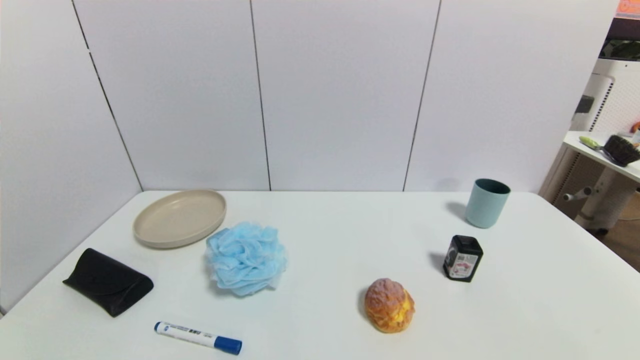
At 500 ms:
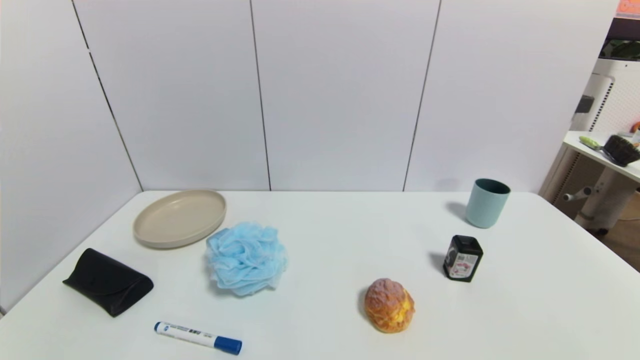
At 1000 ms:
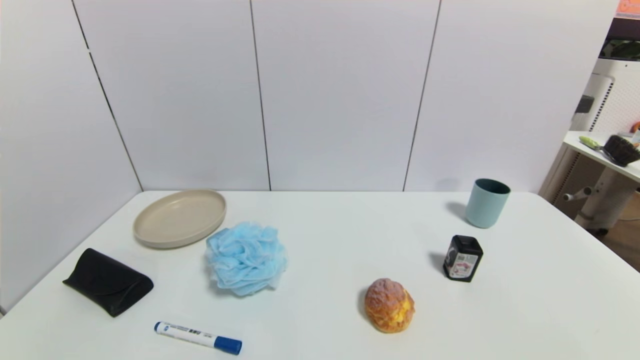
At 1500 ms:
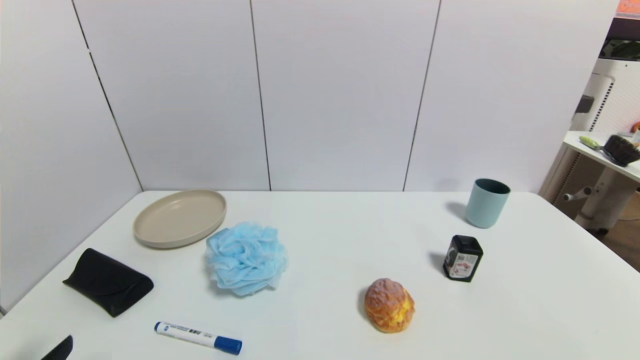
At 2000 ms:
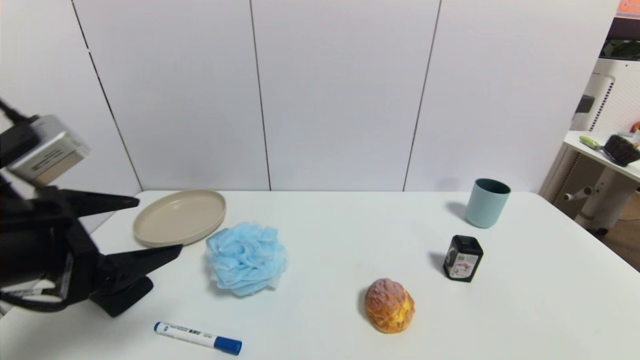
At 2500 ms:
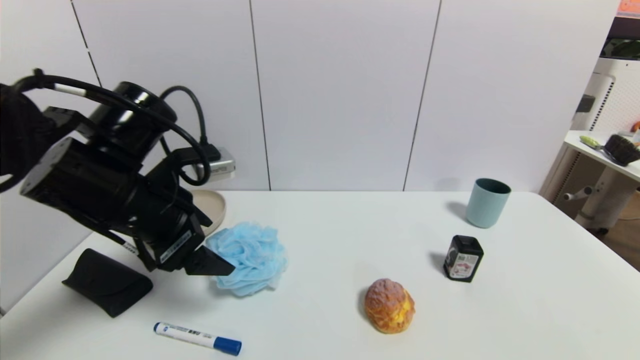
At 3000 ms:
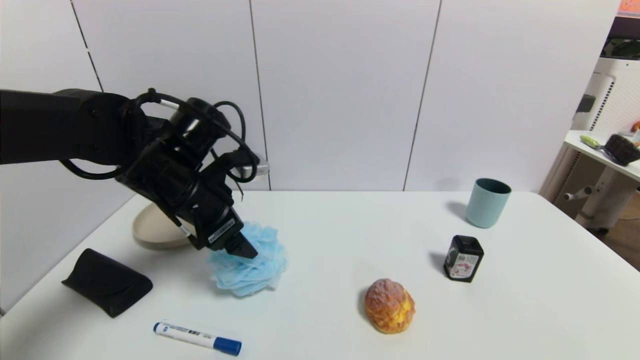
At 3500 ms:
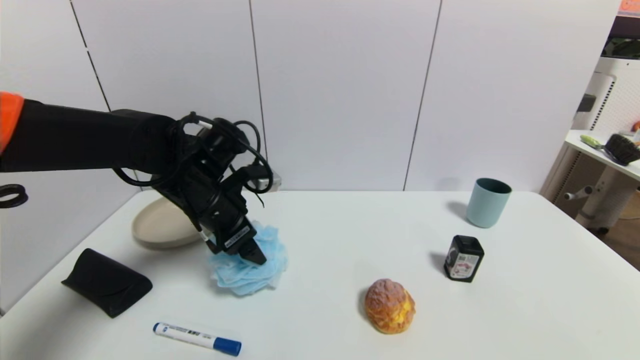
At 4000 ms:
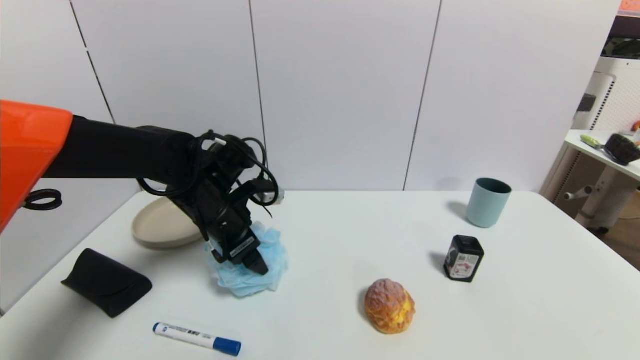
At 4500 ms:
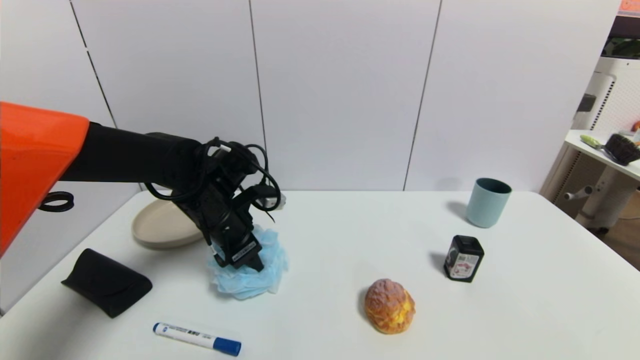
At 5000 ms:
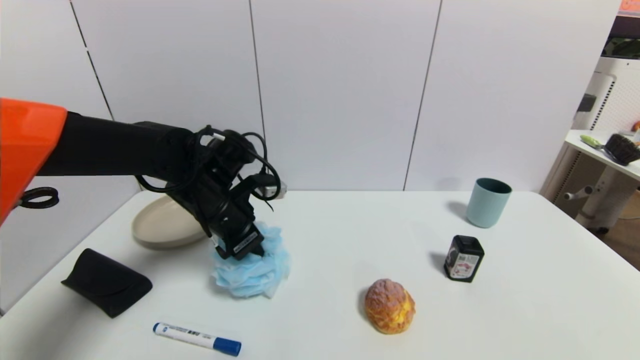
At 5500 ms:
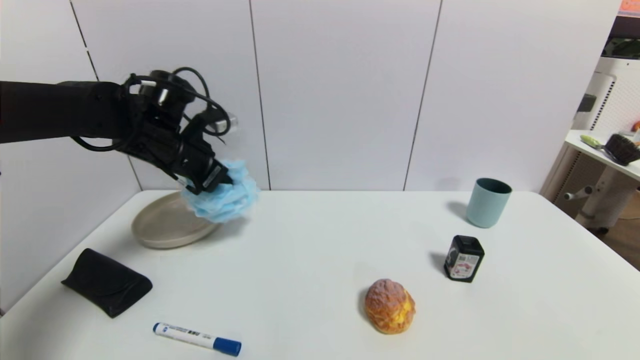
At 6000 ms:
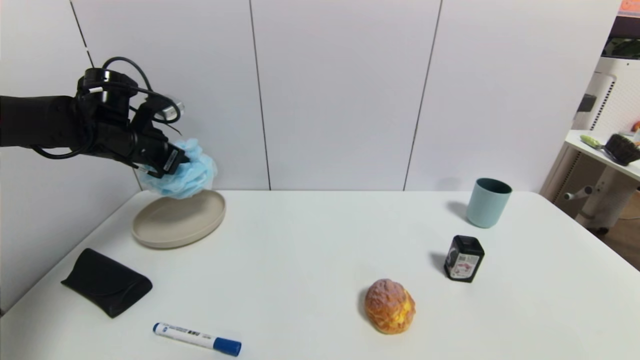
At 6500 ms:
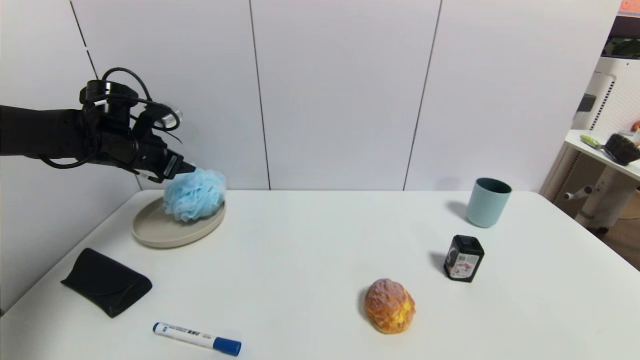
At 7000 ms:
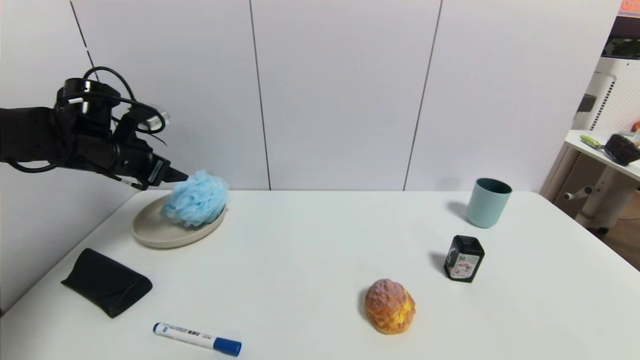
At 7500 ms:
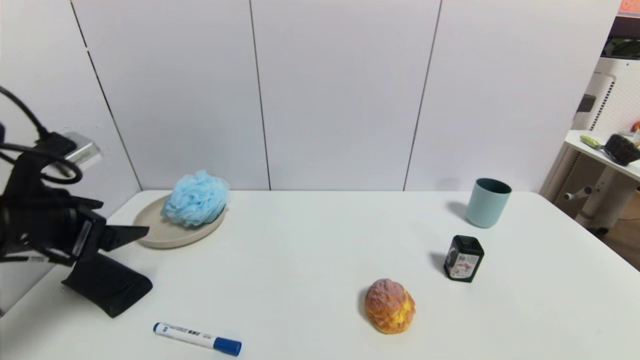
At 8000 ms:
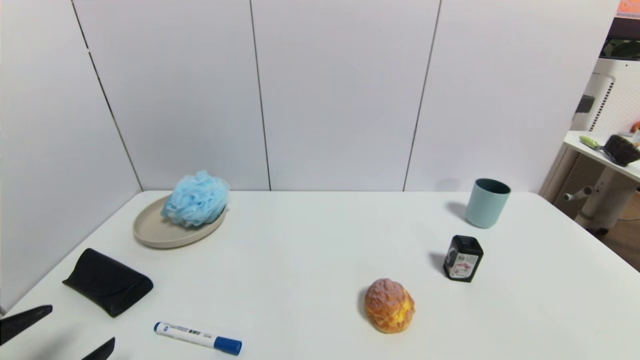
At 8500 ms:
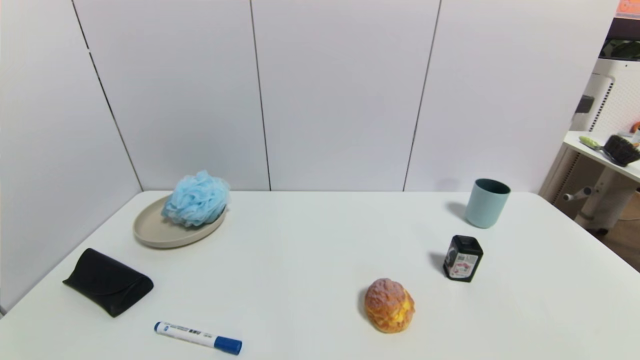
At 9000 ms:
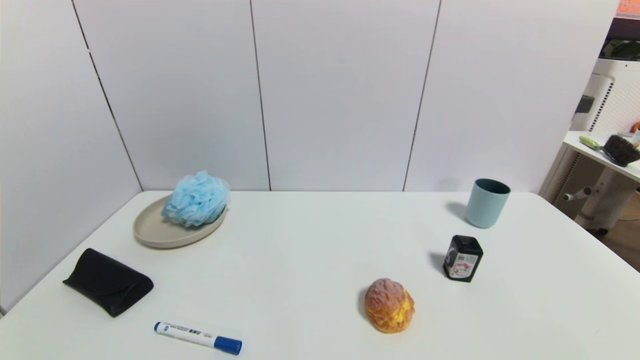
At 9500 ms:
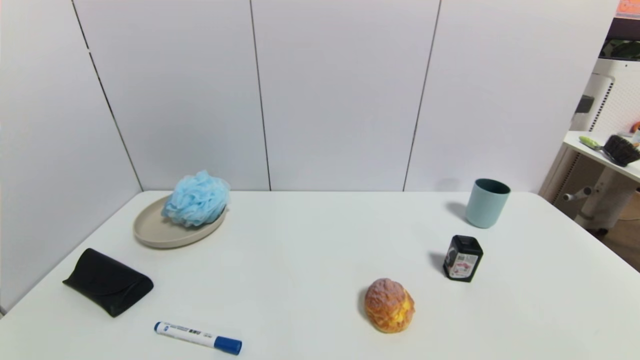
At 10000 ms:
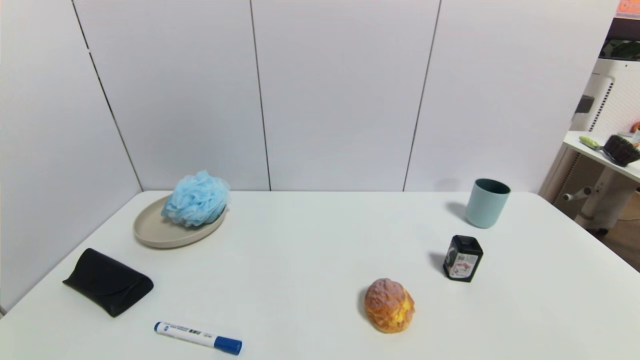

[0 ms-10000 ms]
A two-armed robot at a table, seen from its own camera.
Task of the whole recording: use a gripper to pick the target object and place on the brown plate.
Step, 0 ms to 4500 ms: Grasp the shower sphere with the left gripper.
Step, 5000 ms to 7000 ms: Place the shower sphere on the brown plate with the left gripper.
0 ms to 2000 ms: The left gripper goes roughly 25 cm upward and forward.
2000 ms to 4000 ms: The left gripper goes roughly 25 cm forward, downward and to the right.
4000 ms to 6000 ms: The left gripper travels to the left, upward and forward by approximately 20 cm, and closes.
6000 ms to 8000 ms: The left gripper heads backward, covering approximately 35 cm, and opens.
8000 ms to 10000 ms: The left gripper shifts about 10 cm backward and downward.
